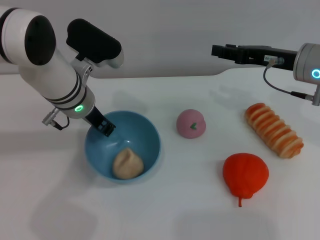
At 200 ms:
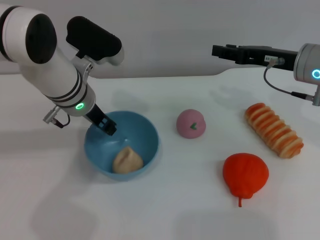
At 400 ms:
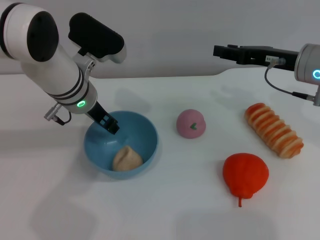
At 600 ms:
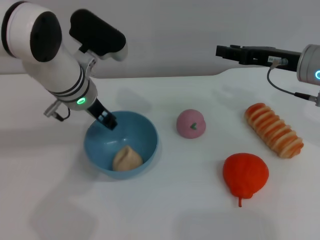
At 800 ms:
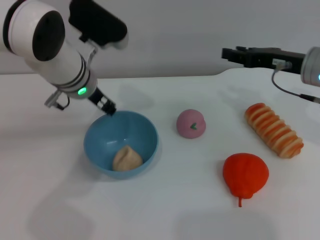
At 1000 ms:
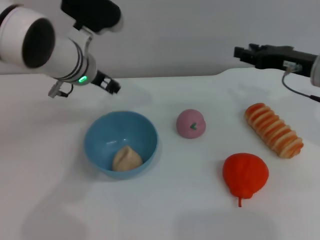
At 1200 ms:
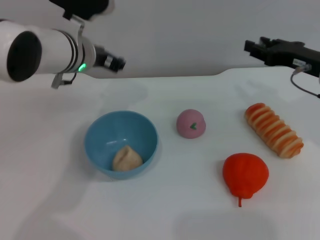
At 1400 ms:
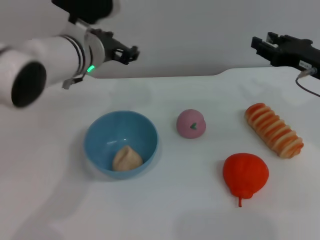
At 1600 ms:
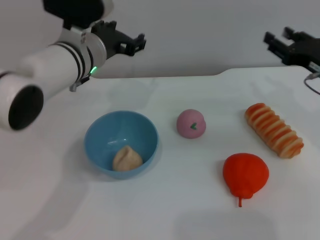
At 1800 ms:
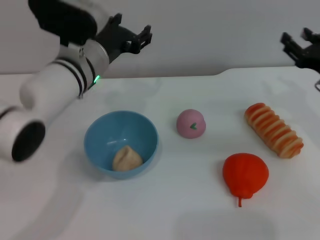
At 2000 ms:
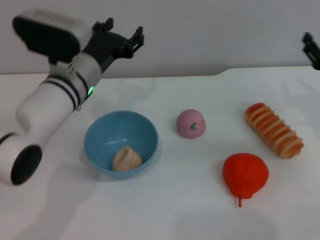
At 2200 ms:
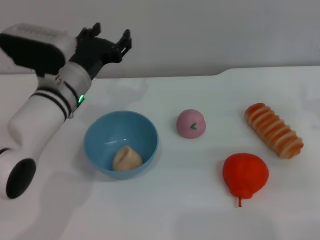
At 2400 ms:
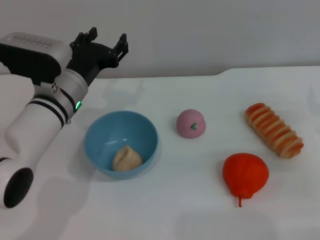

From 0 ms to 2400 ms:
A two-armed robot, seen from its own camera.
Task of the whole recording: put the egg yolk pastry into the blue bowl and pour it out repeatedly.
From 0 ms to 1200 ms: The left gripper opens up.
From 1200 ms to 2400 ms: The left gripper moves downward, some 5 cm; the right gripper goes roughly 10 cm downward, backward and to the right.
